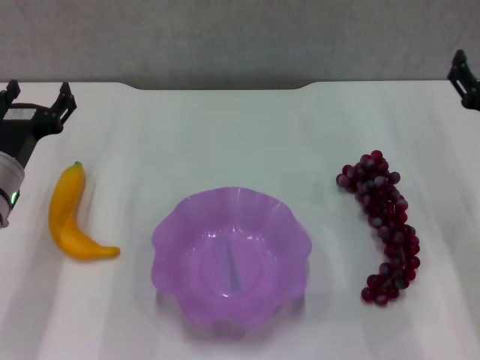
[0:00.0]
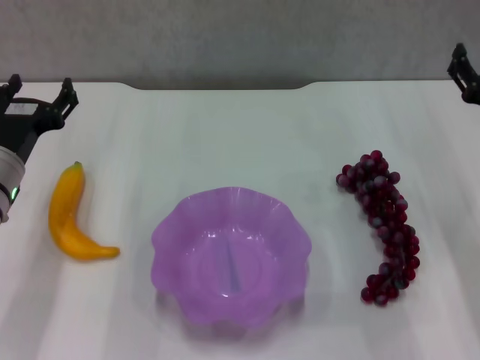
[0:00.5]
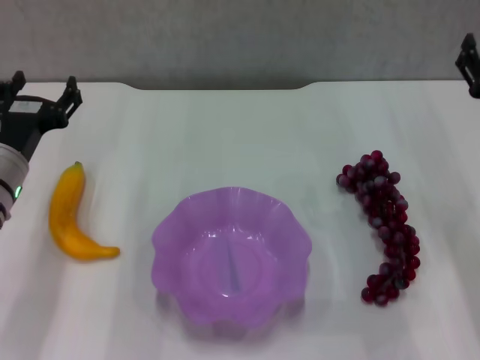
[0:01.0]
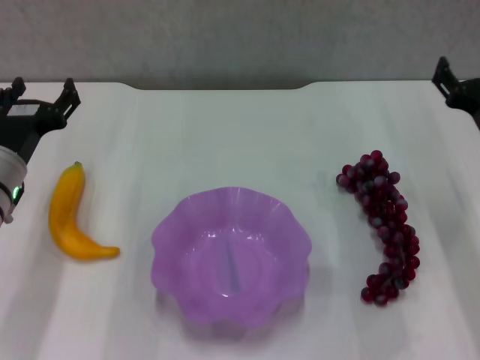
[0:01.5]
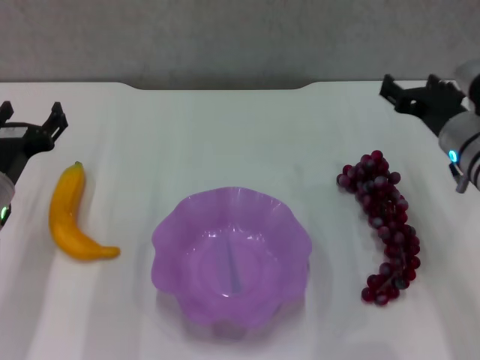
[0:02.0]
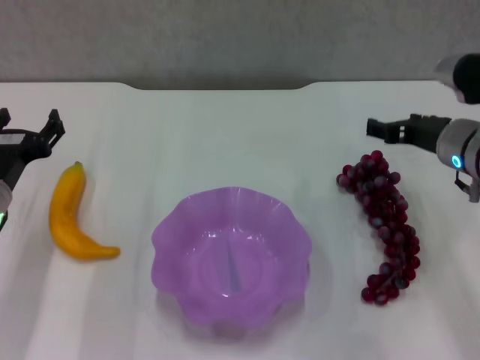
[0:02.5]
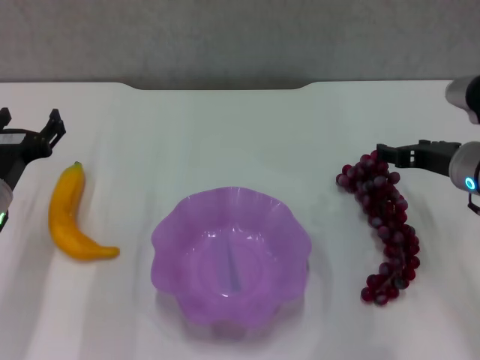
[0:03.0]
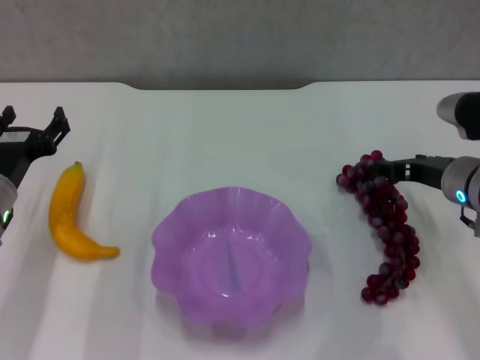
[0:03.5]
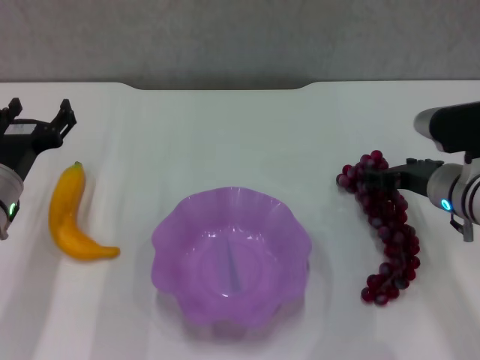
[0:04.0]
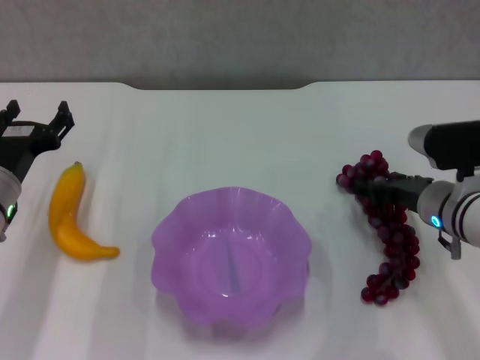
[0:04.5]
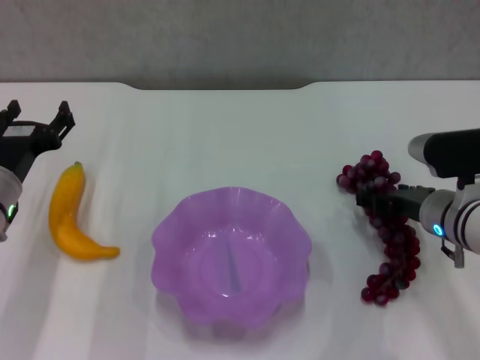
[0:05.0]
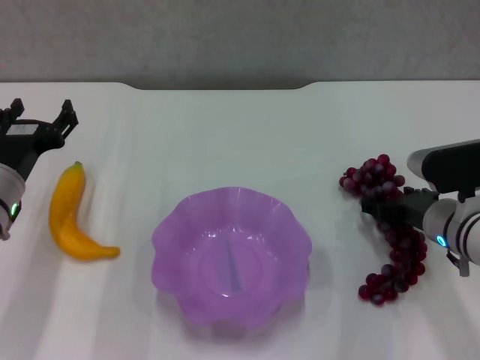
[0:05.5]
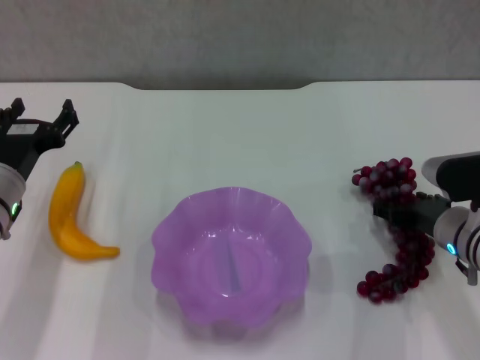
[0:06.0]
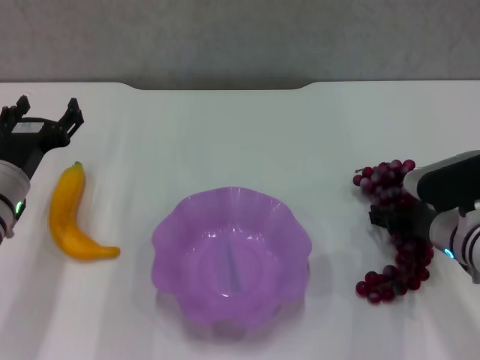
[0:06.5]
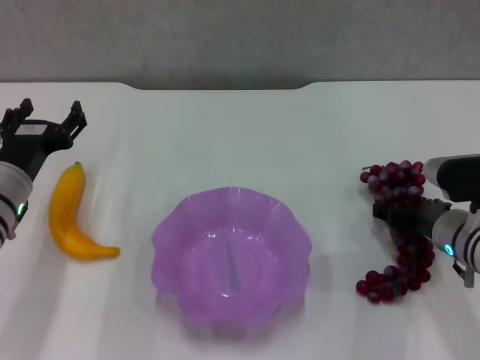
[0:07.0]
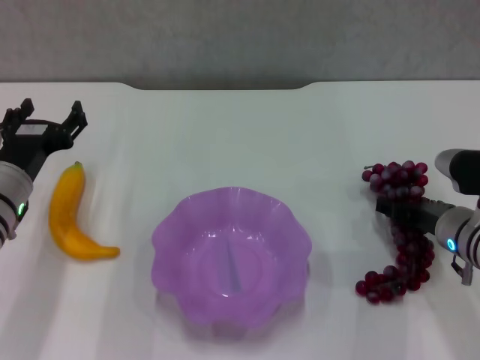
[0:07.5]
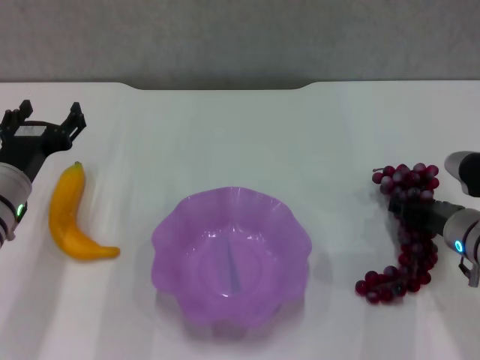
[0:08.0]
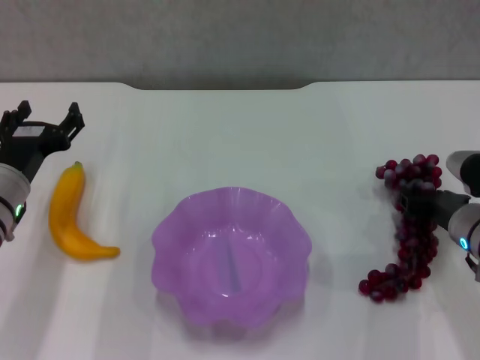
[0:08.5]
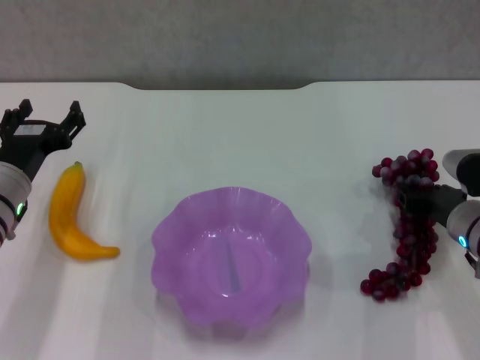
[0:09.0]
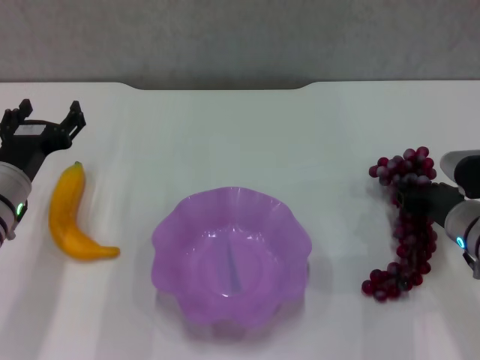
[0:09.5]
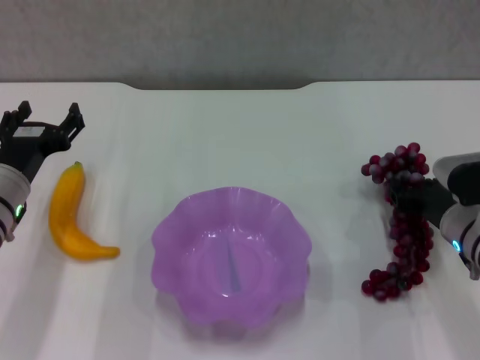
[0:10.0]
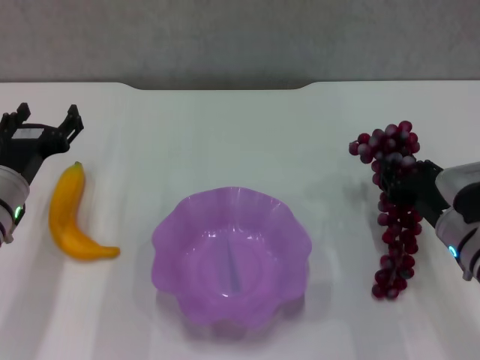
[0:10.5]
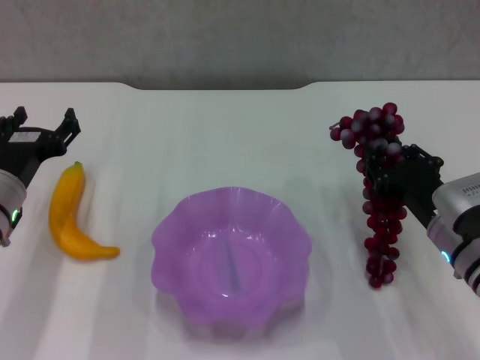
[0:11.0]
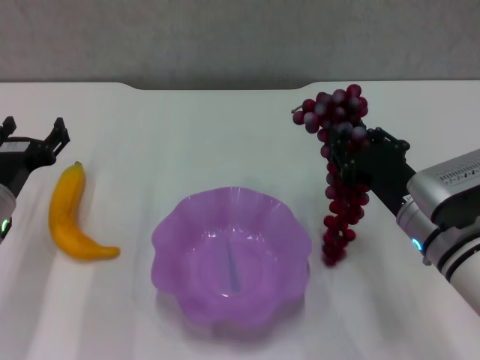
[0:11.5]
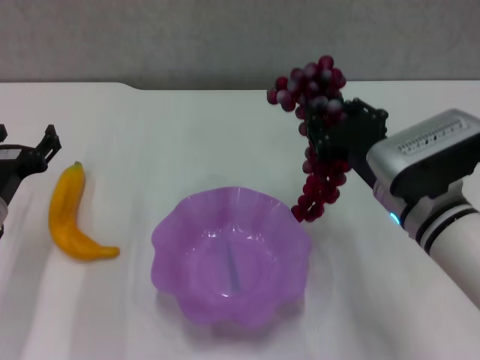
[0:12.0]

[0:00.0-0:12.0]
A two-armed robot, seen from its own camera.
Step, 0:00.0 to 0:08.0: Grasp the grape with right gripper.
0:00.0 to 0:02.0: The right gripper ends up roughly 5 cm from where it was.
0:04.0 to 0:06.0: The right gripper shifts by approximately 5 cm.
0:06.0 to 0:08.0: The grippers move only a little.
0:08.0 to 0:10.0: The right gripper closes.
0:10.0 to 0:12.0: The right gripper goes some 10 cm to the left and upward.

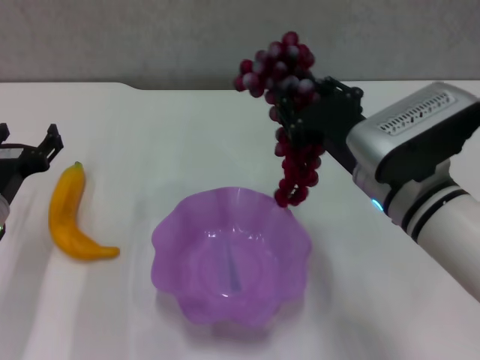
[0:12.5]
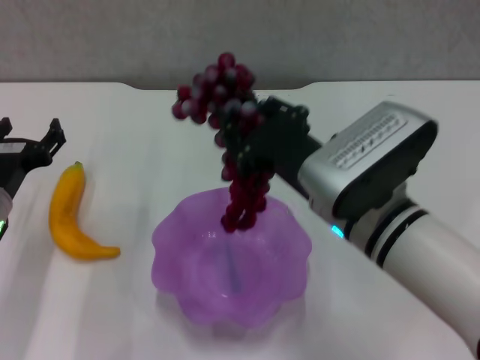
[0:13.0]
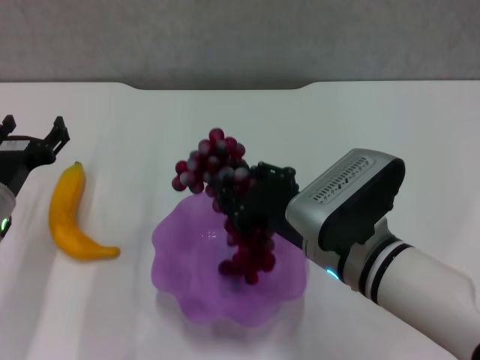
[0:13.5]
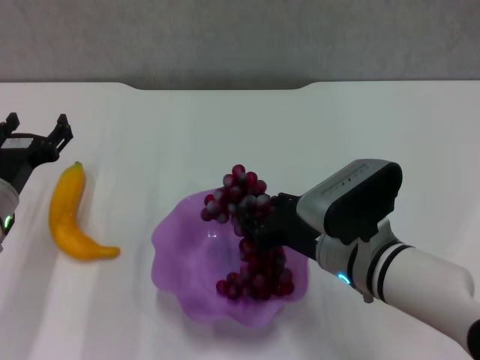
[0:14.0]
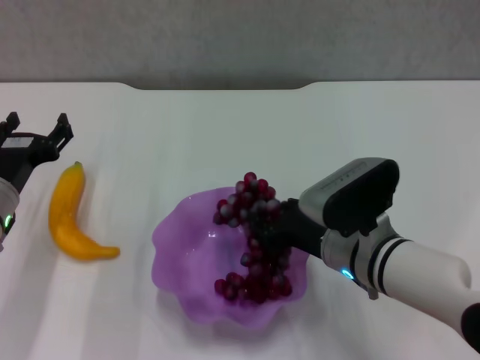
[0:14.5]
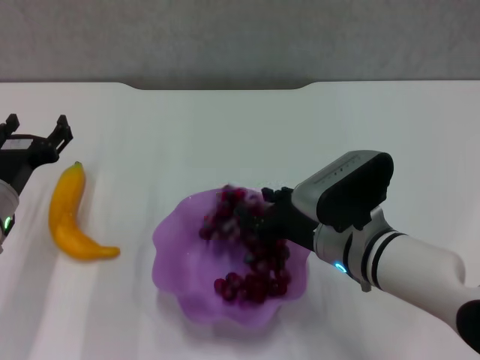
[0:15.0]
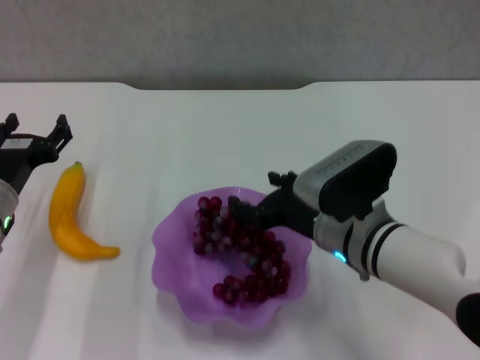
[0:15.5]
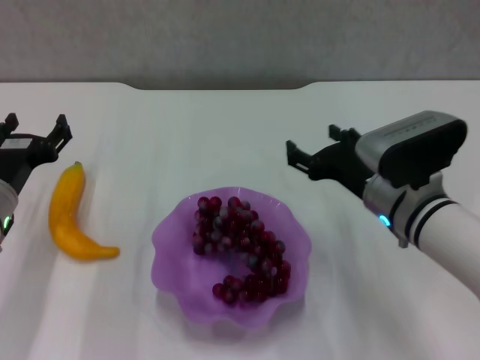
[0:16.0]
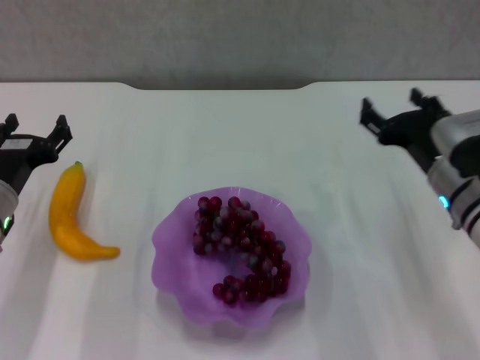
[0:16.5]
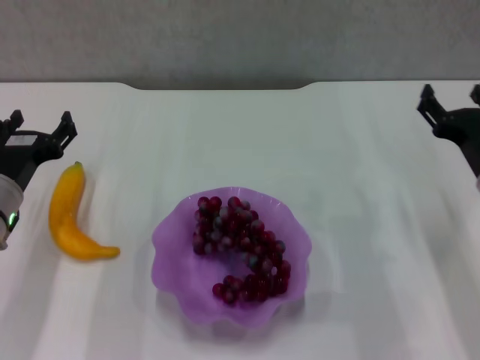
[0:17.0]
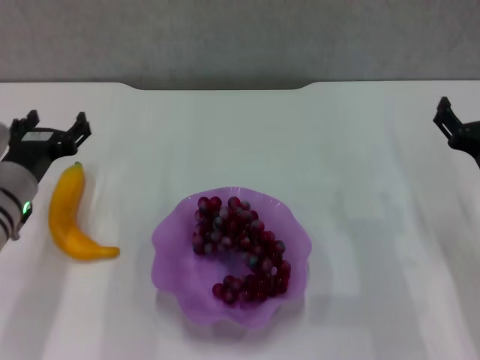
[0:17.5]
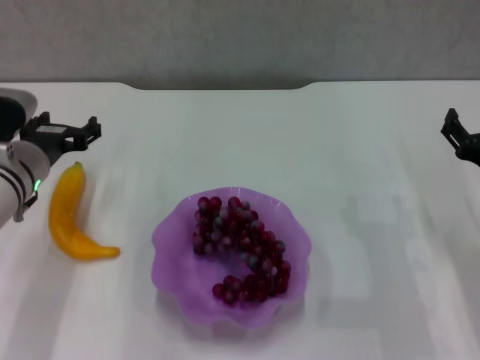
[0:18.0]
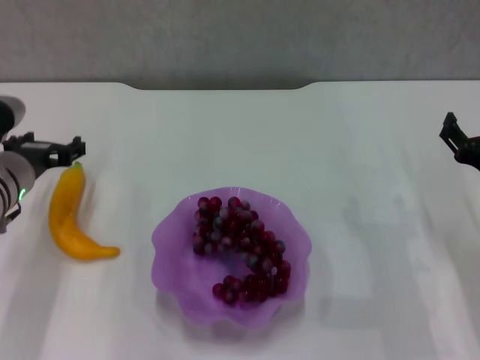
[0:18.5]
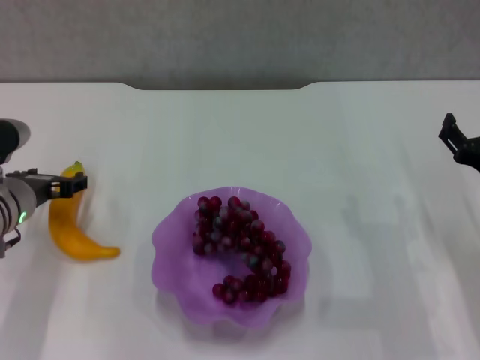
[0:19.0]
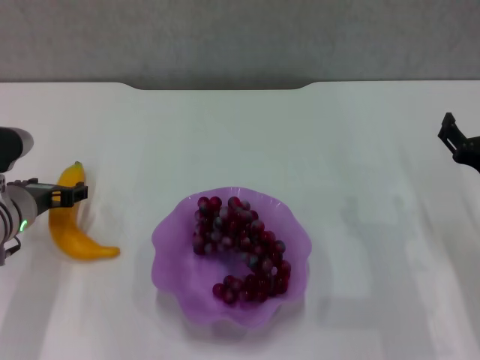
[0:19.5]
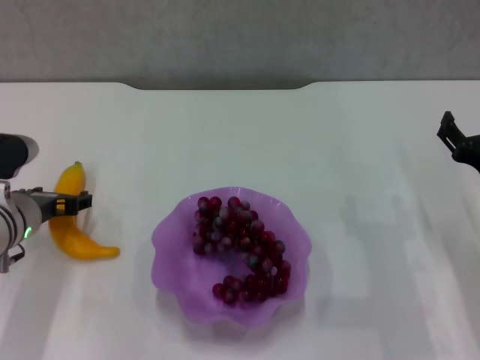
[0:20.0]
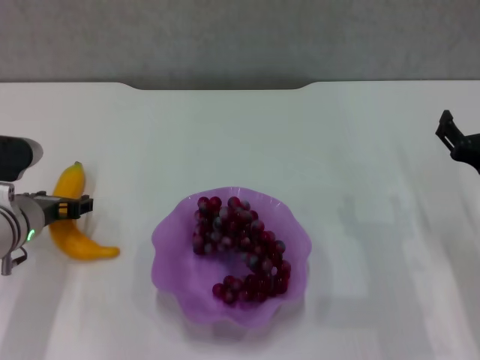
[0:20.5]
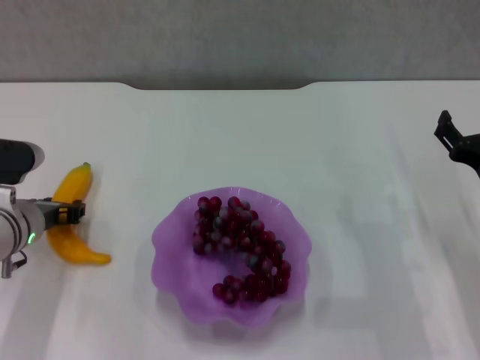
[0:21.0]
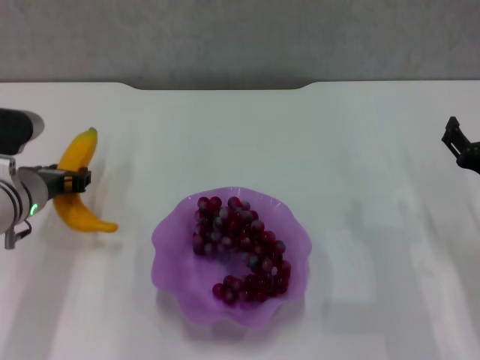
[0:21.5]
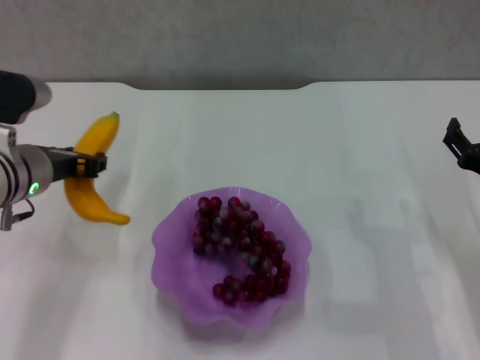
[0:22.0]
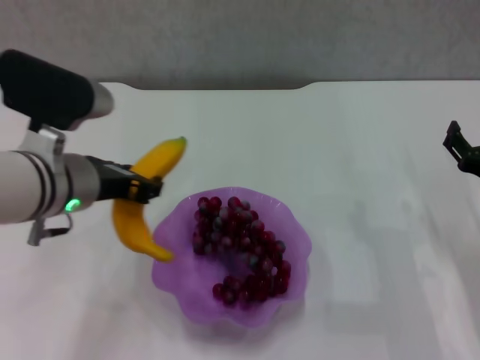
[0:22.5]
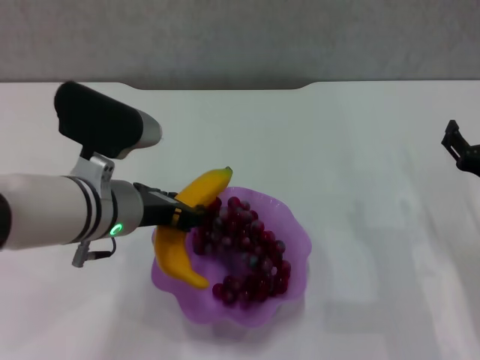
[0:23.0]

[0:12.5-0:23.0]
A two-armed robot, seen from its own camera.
Step, 0:12.5 to 0:15.0: Place the grape in the purple plate with right gripper.
Step, 0:15.5 to 0:21.0: Grasp the banana with left gripper.
0:12.5 to 0:14.5: The right gripper is displaced downward by roughly 10 cm.
0:14.5 to 0:16.5: The right gripper goes some 10 cm to the right, and opens up.
0:16.5 to 0:19.0: The right gripper heads to the right, covering approximately 5 cm.
0:19.0 to 0:21.0: The left gripper closes its fingers.
0:21.0 to 0:23.0: The left gripper shifts approximately 15 cm to the right and upward.

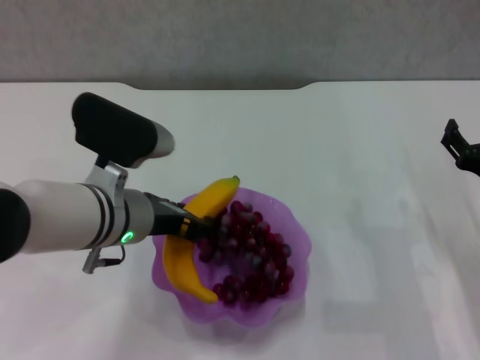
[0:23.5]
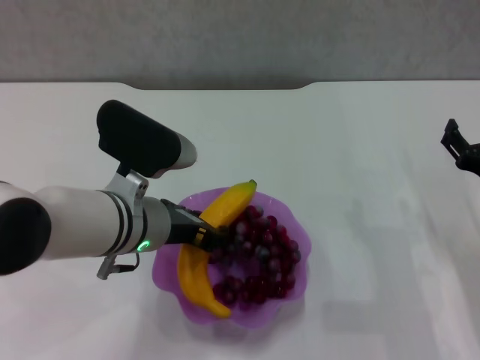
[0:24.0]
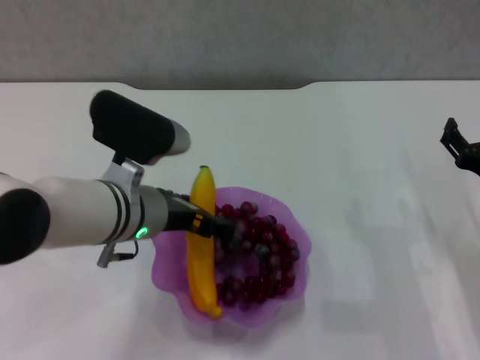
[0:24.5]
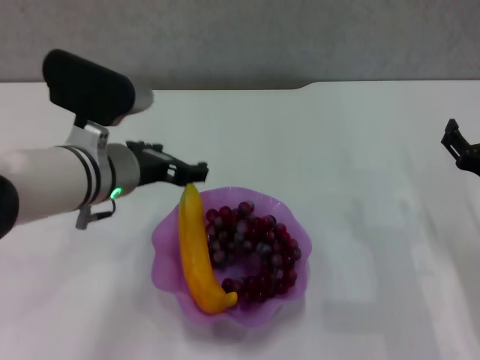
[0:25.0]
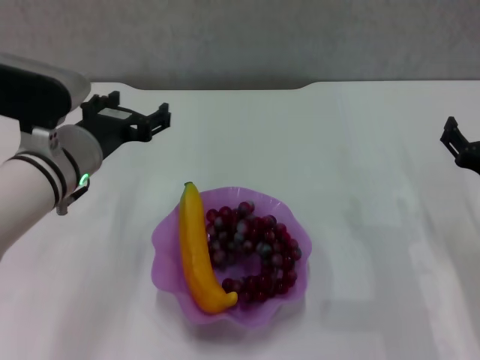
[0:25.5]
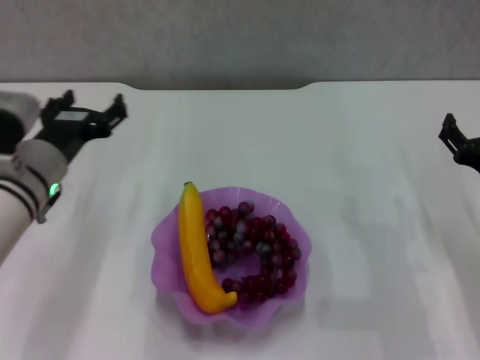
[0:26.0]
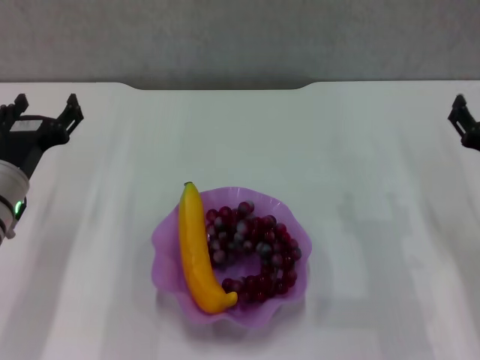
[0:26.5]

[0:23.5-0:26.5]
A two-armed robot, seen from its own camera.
0:23.5 to 0:25.0: The left gripper opens its fingers.
0:25.0 to 0:26.5: The left gripper travels to the left and downward by some 15 cm.
